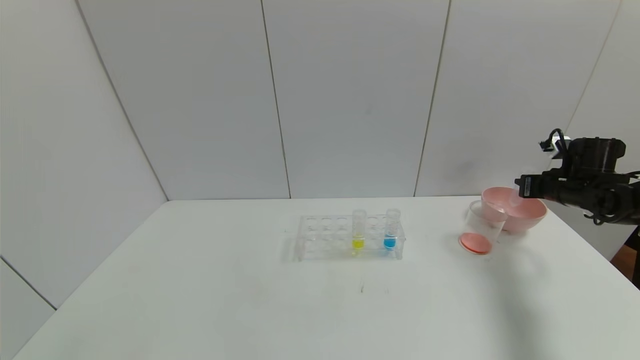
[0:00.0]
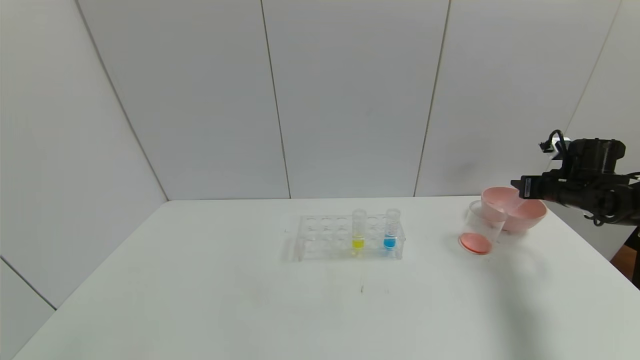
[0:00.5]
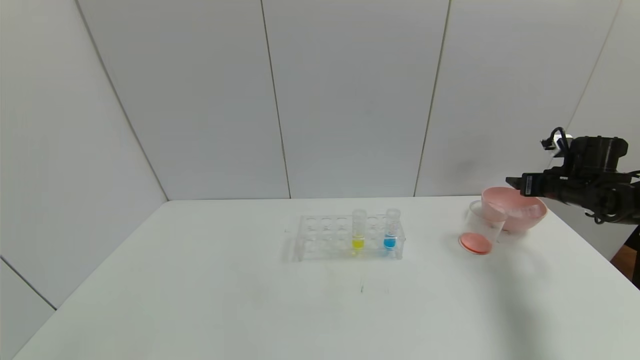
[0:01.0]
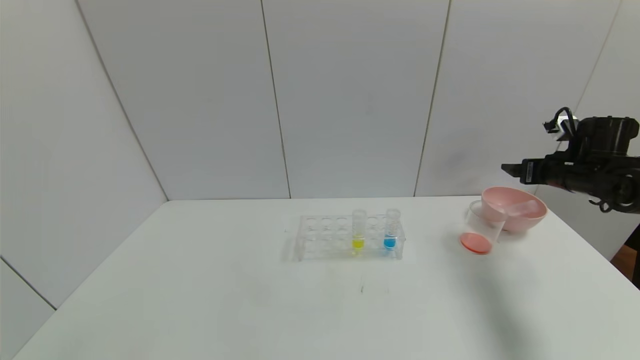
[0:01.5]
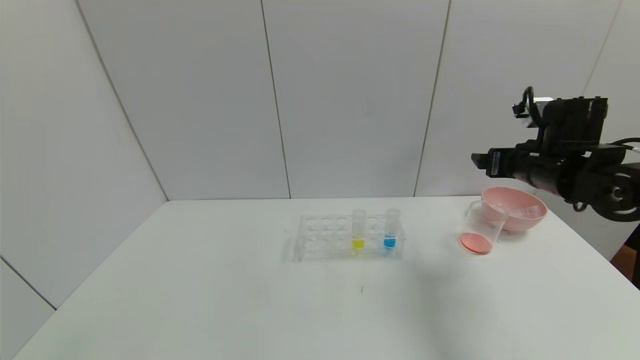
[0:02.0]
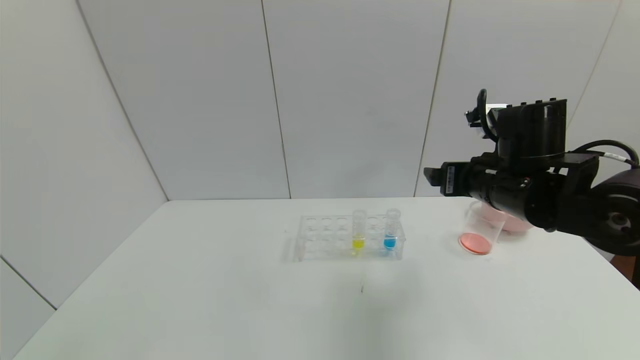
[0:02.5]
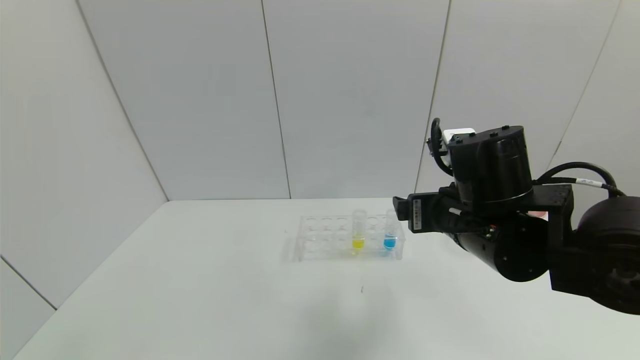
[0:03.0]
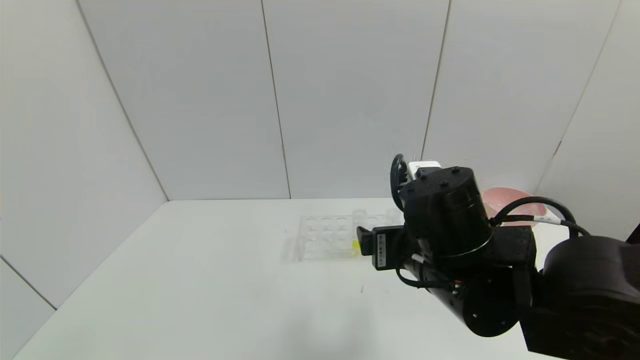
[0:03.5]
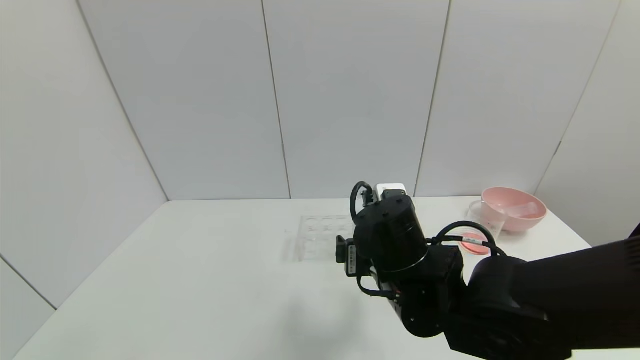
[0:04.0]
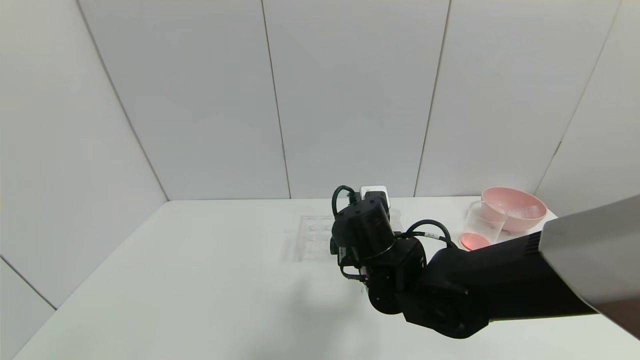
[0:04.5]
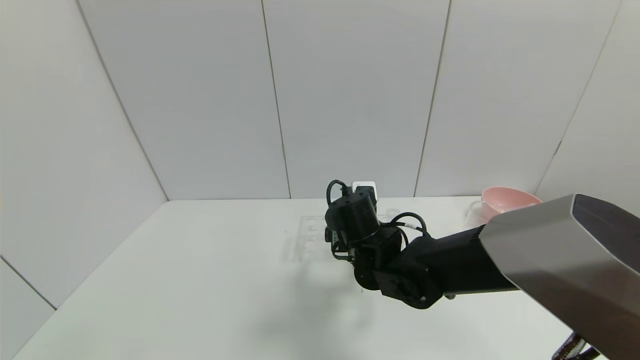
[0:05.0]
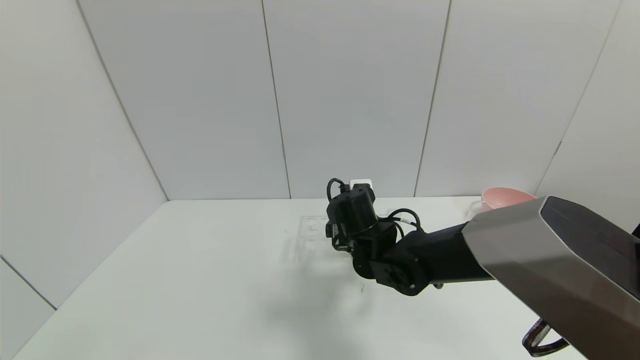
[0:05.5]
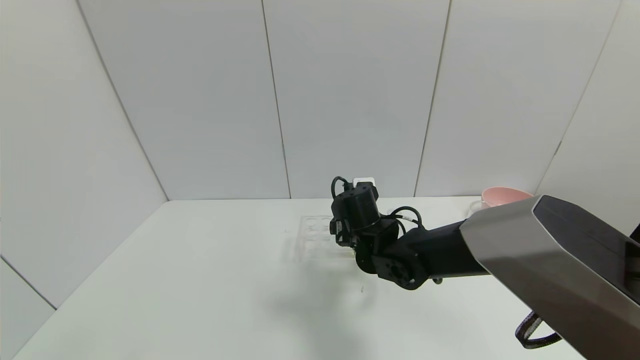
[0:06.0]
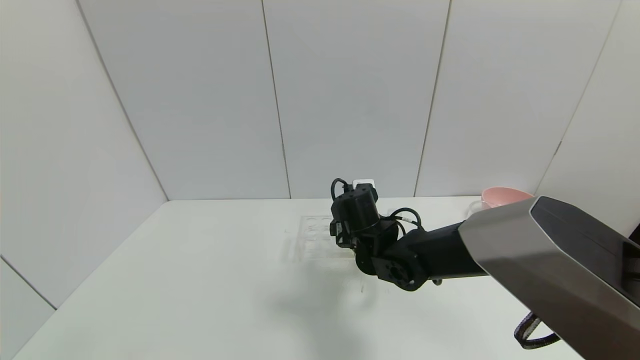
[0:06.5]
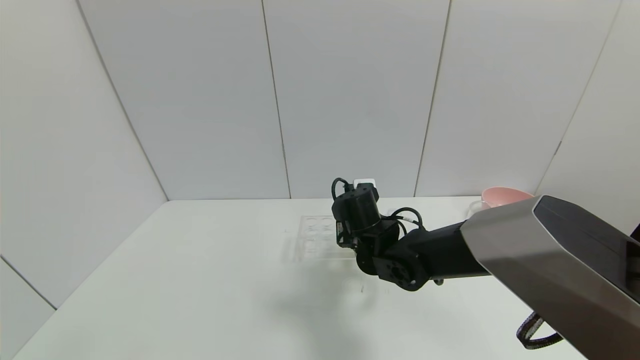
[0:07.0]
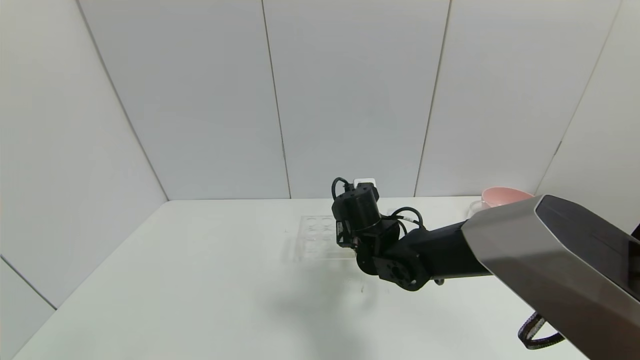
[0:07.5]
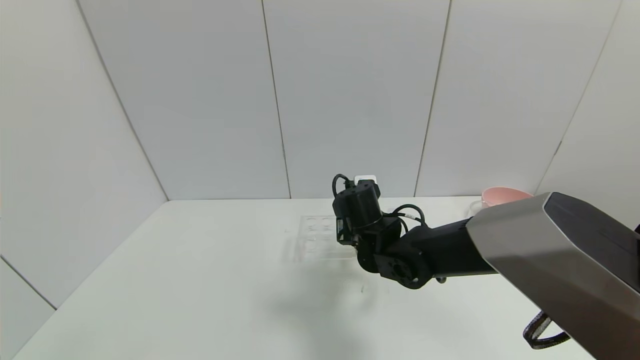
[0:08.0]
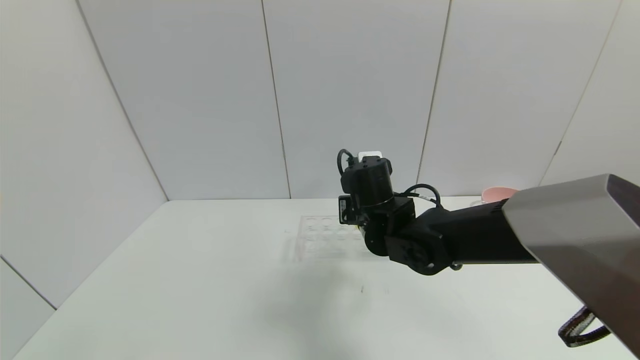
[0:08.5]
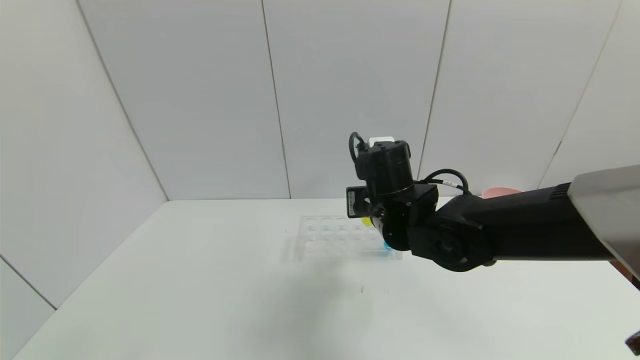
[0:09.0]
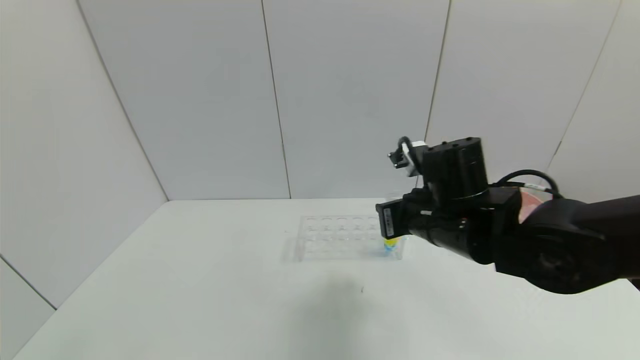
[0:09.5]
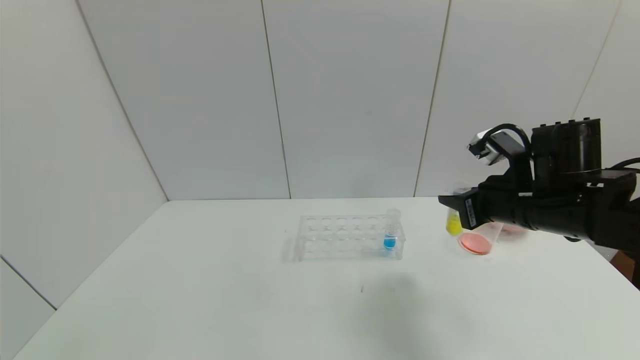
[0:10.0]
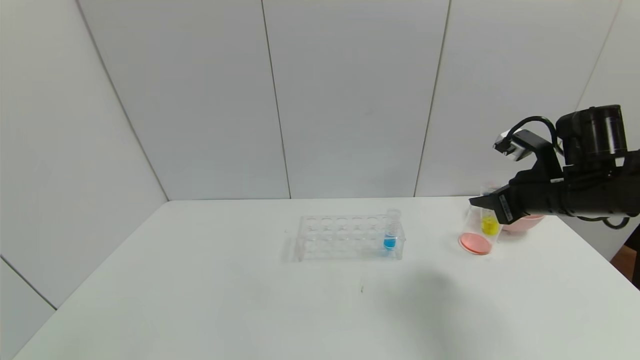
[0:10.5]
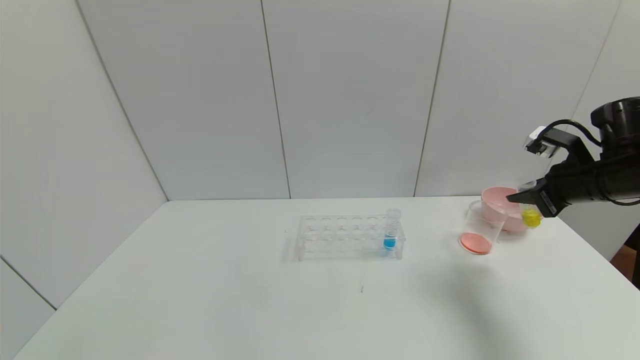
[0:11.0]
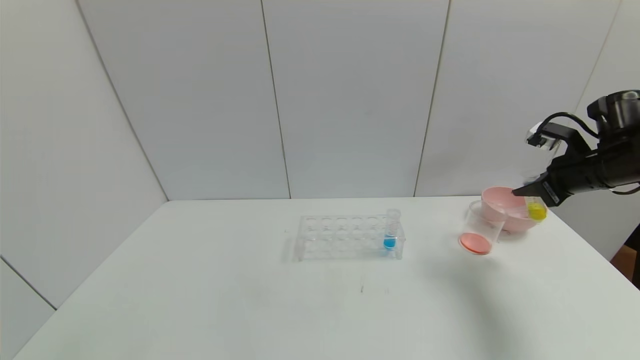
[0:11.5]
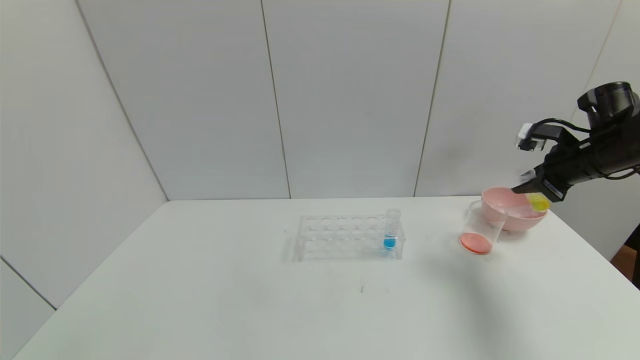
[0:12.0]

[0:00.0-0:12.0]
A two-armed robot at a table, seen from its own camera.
Task of the whole recording: pick up the test tube with yellow pigment and the test tube with red pigment by grippers and pour them into the beaker.
Step, 0:01.0 to 0:07.5: Grasp the yellow reagent with the right gripper.
0:00.0 to 0:02.0: The right gripper shifts about 20 cm to the left, upward and backward, and opens up.
0:02.0 to 0:04.0: The right gripper is displaced to the left and backward by some 25 cm.
0:04.0 to 0:06.0: The right gripper travels forward and downward by about 15 cm.
0:06.0 to 0:08.0: The right gripper closes.
0:08.0 to 0:10.0: The right gripper is displaced to the right and upward by approximately 25 cm.
0:10.0 to 0:12.0: The right gripper heads to the right and forward, covering about 15 cm.

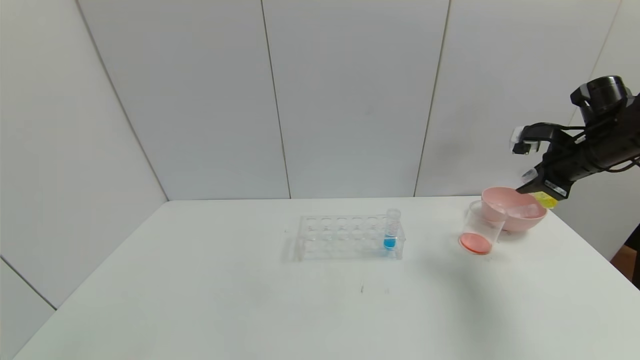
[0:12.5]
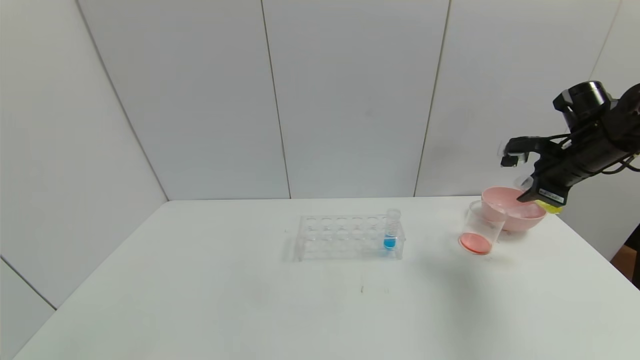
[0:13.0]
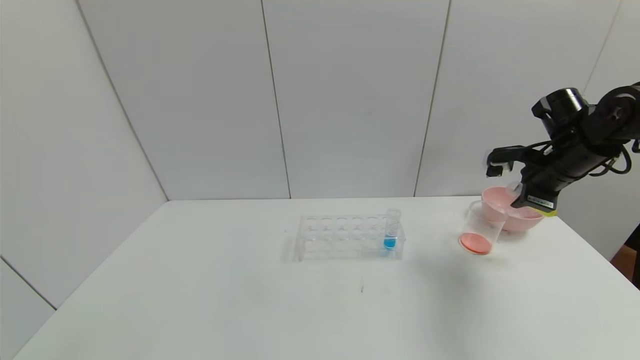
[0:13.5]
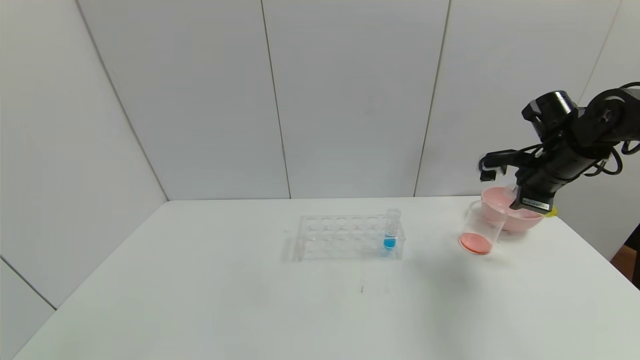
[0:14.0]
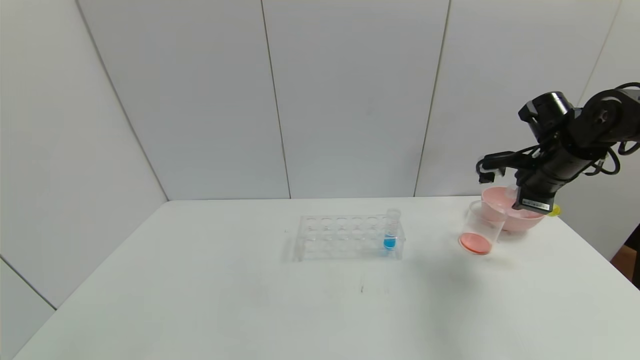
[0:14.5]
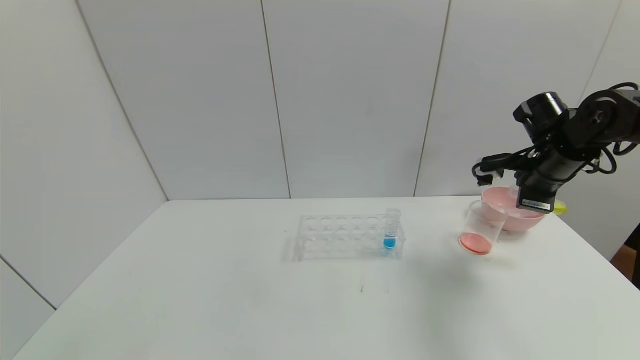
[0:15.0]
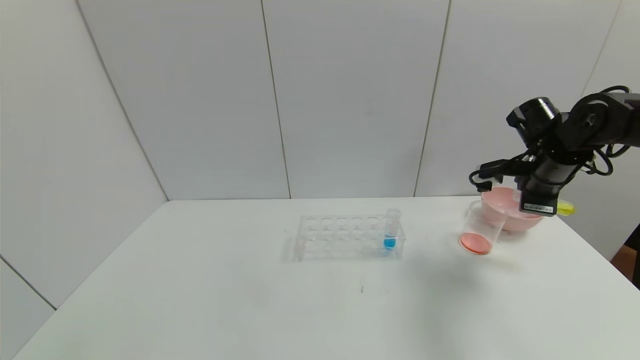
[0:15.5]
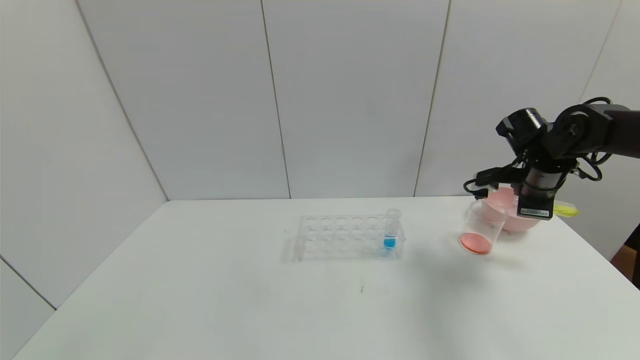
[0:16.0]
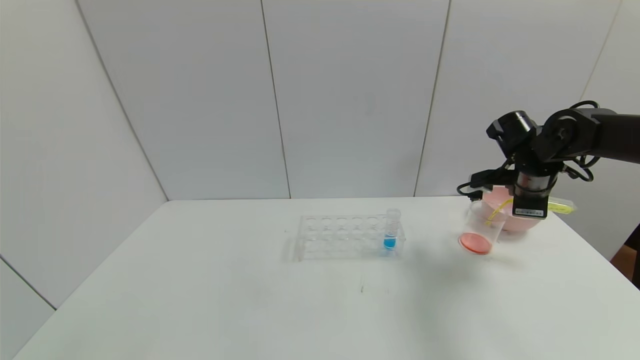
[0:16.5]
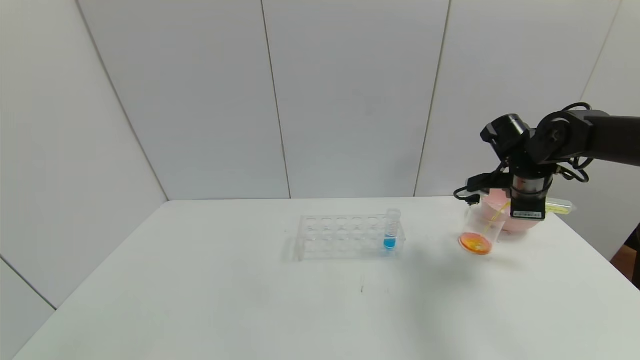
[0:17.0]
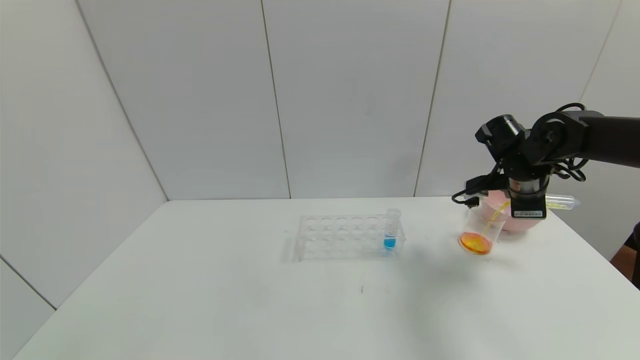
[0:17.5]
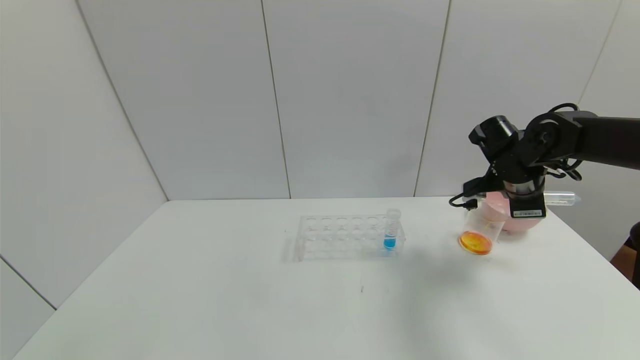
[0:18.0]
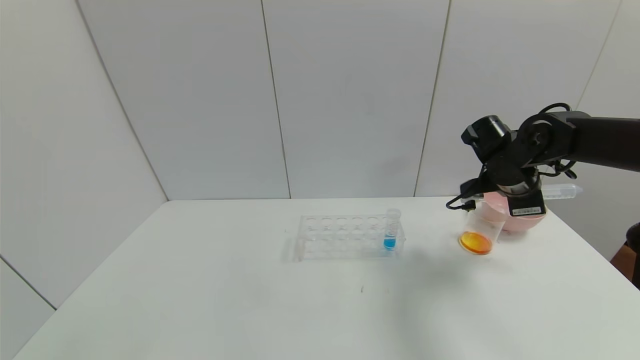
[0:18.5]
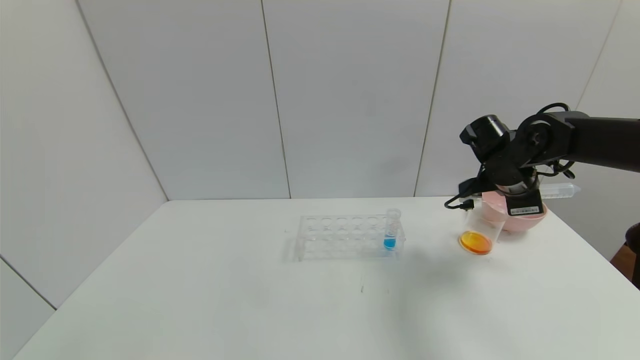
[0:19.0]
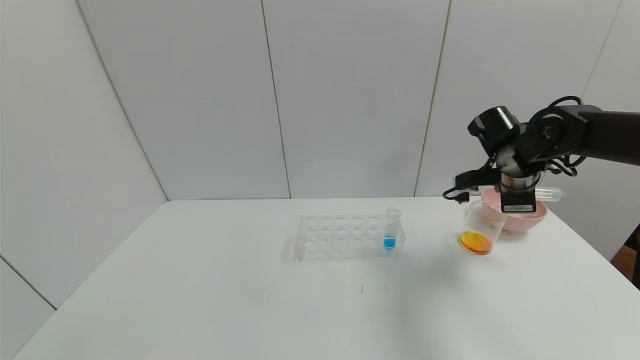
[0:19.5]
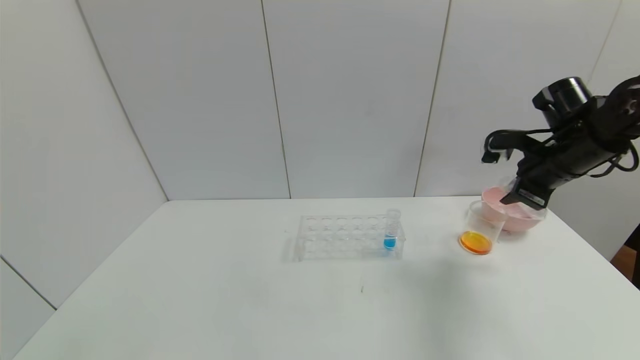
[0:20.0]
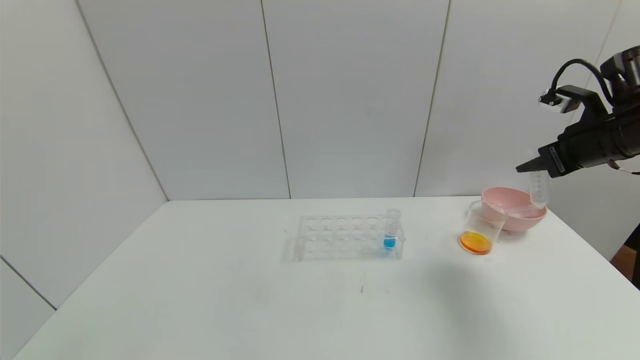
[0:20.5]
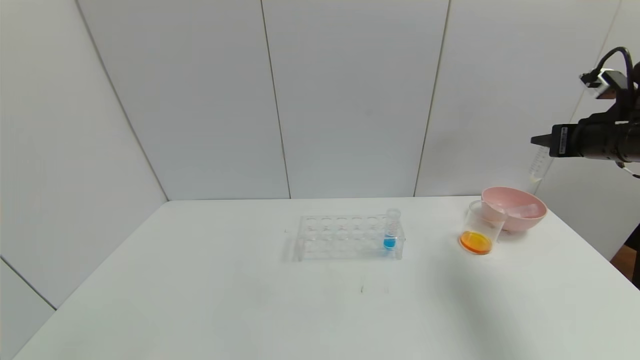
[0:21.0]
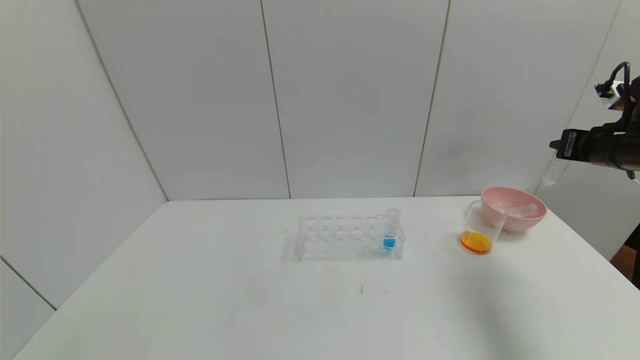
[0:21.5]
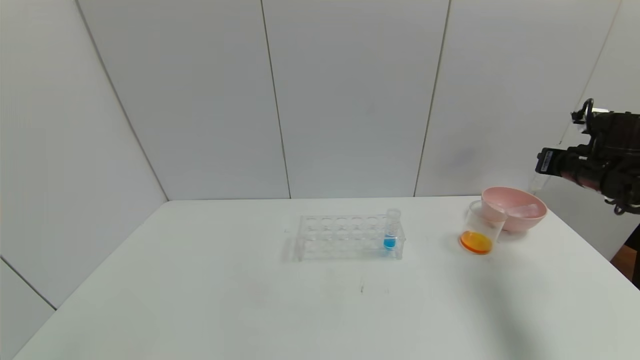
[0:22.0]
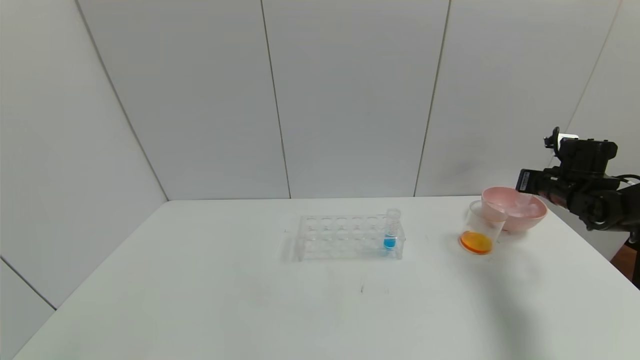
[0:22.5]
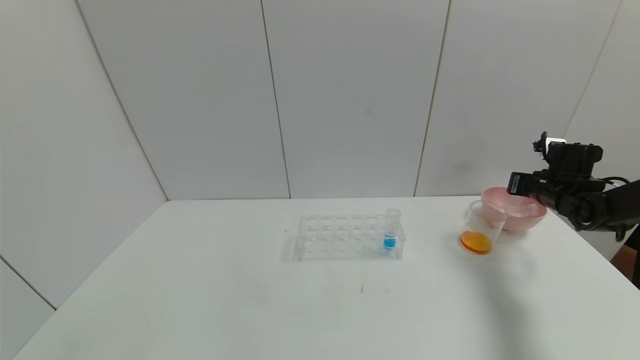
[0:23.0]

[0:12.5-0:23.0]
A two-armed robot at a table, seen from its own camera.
Task of the whole recording: pick up the test tube with yellow pigment and the test tube with red pigment by grippers and pour them into the beaker.
Step, 0:12.5 to 0:19.0: Pour the yellow reagent into the graduated cylinder with the right gripper.
0:12.5 to 0:14.5: The right gripper goes roughly 5 cm to the left.
0:16.5 to 0:19.0: There are only small adjustments of the grippers.
0:19.0 to 0:21.0: The right gripper moves to the right, upward and backward, about 15 cm.
0:21.0 to 0:23.0: The right gripper moves downward and forward, roughly 15 cm.
